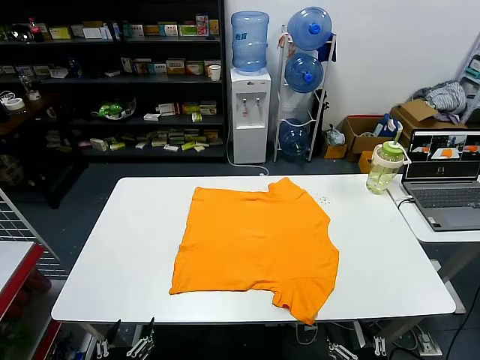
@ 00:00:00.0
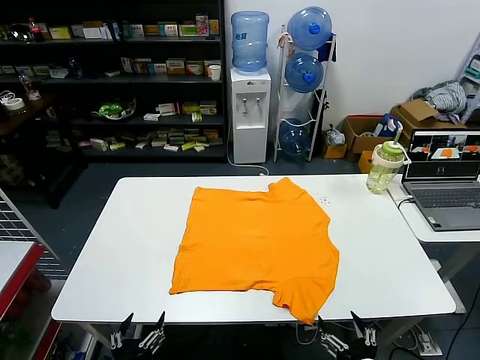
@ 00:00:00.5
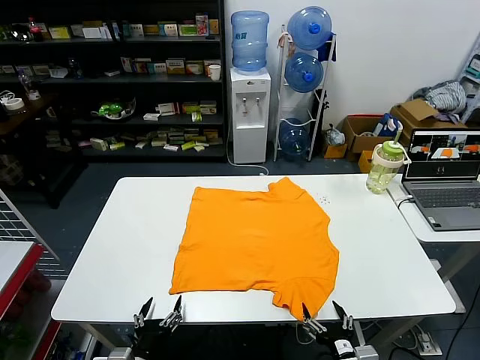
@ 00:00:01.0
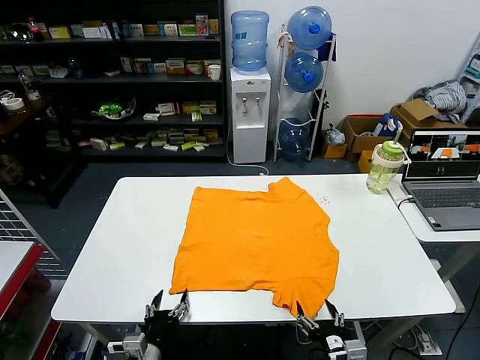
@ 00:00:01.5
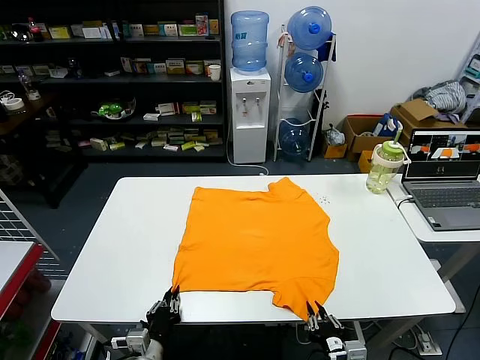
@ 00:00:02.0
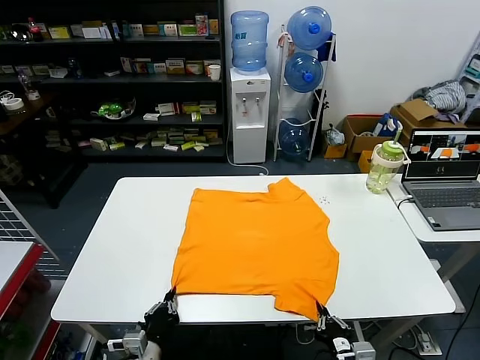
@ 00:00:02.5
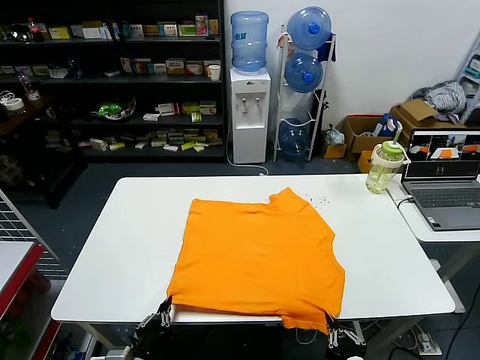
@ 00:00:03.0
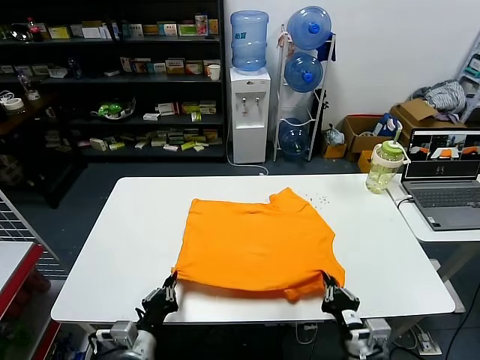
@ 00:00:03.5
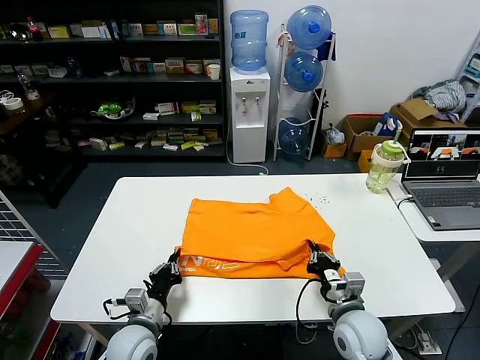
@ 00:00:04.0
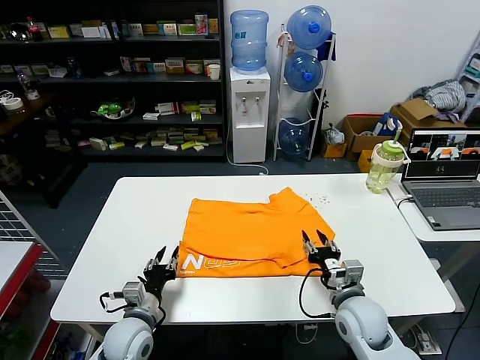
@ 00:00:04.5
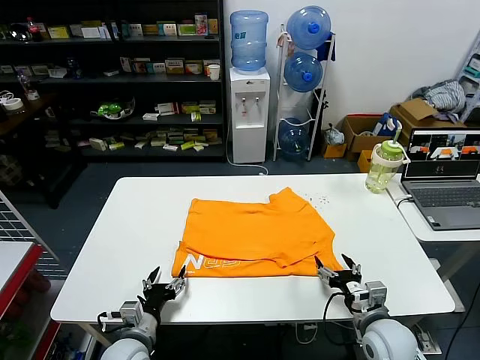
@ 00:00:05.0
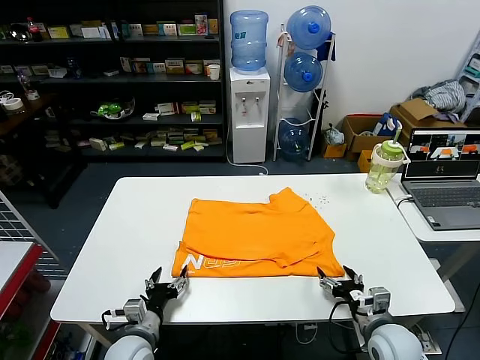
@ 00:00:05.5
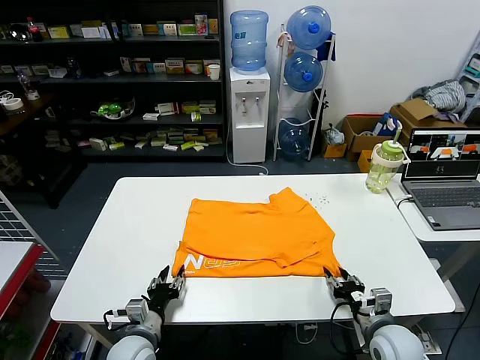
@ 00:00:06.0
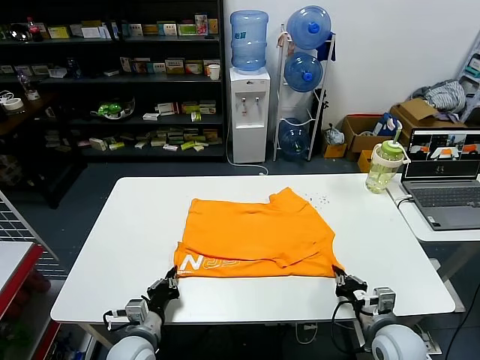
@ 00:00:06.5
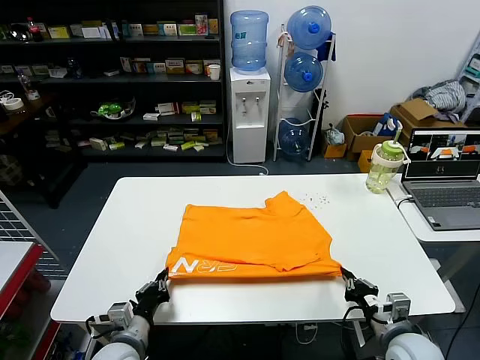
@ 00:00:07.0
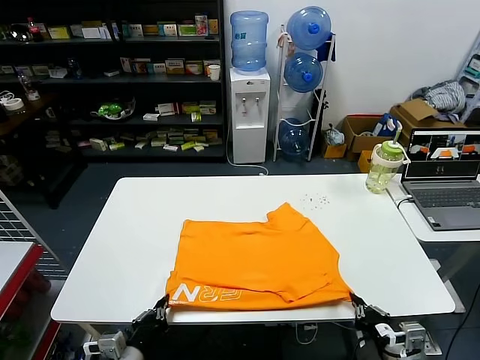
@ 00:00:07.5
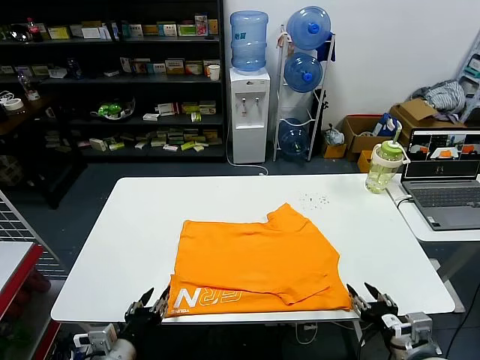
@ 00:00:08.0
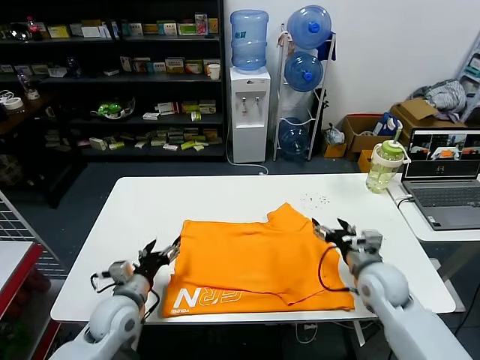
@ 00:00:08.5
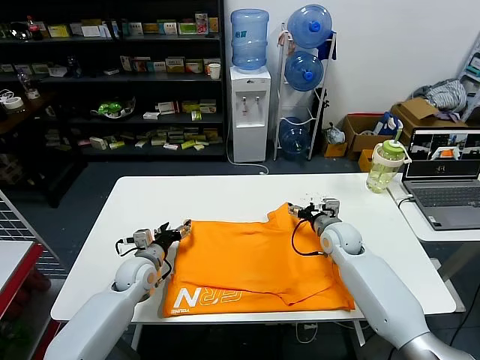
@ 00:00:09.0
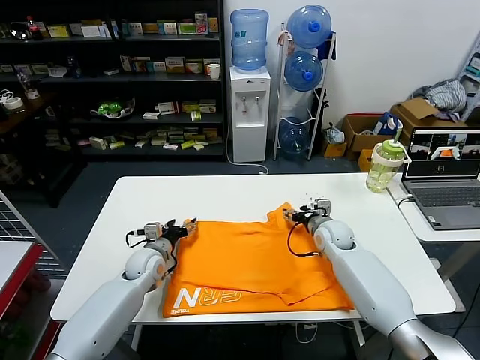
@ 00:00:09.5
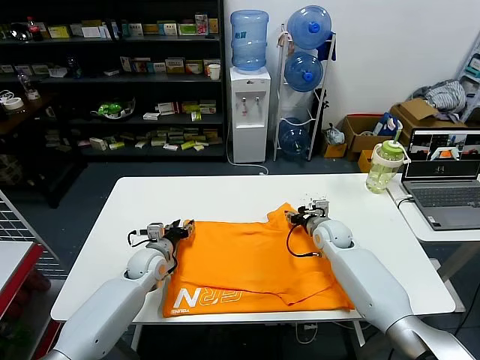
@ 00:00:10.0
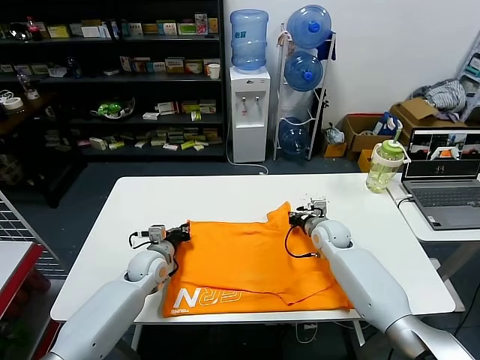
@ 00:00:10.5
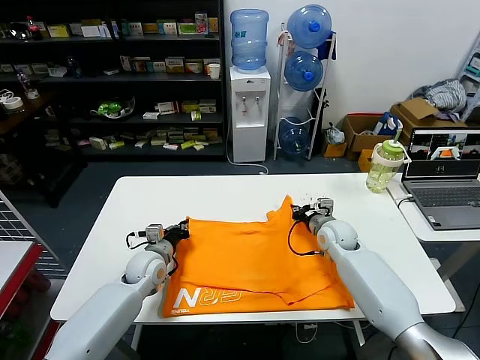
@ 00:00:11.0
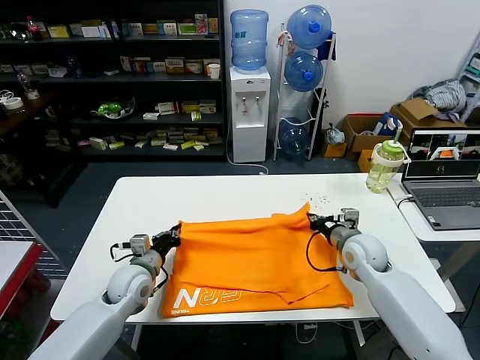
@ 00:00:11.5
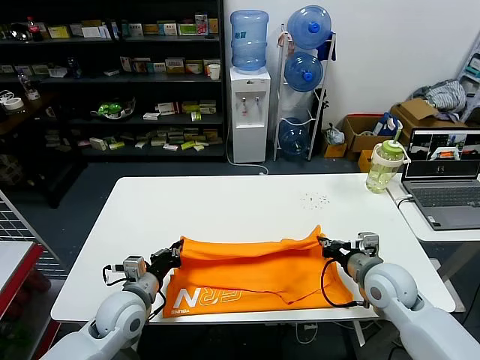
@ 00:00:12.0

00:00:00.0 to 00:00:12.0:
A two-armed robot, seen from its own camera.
Task of the whole recording: fold and organize the clothes.
Step, 00:00:00.0 to 00:00:02.0: use both grippers simultaneously to clamp the lower edge of the clothing fabric.
Step, 00:00:02.5 to 00:00:04.0: use both grippers to drag the lower edge of the fabric forward and fold it over the upper edge.
Step, 00:00:04.5 to 00:00:07.5: Drag the clothes downward with both gripper.
Step, 00:00:08.0 to 00:00:10.0: use both grippers simultaneously to clamp the upper edge of the clothing fabric.
00:00:02.0 to 00:00:04.0: The right gripper goes about 15 cm forward. Meanwhile the left gripper travels forward by about 5 cm.
00:00:04.0 to 00:00:06.0: The right gripper travels to the right by about 10 cm, and opens up, while the left gripper opens its fingers.
00:00:06.0 to 00:00:08.0: Both grippers move backward and upward, roughly 10 cm. The right gripper closes, then reopens; the left gripper closes, then opens again.
00:00:08.0 to 00:00:10.0: Both grippers travel together forward, about 30 cm. The right gripper opens, then closes again.
00:00:10.0 to 00:00:12.0: The two grippers go some 15 cm backward and upward. The left gripper closes its fingers, while the right gripper closes.

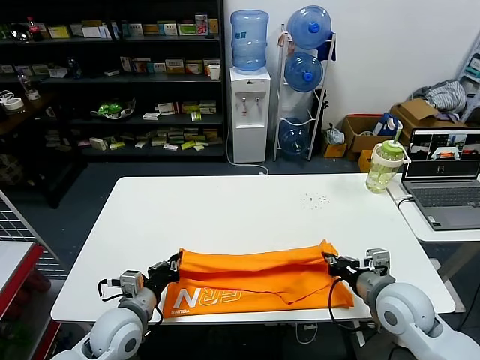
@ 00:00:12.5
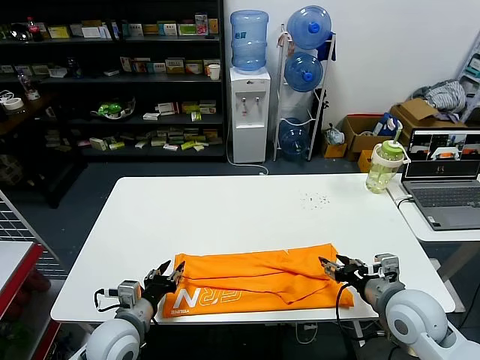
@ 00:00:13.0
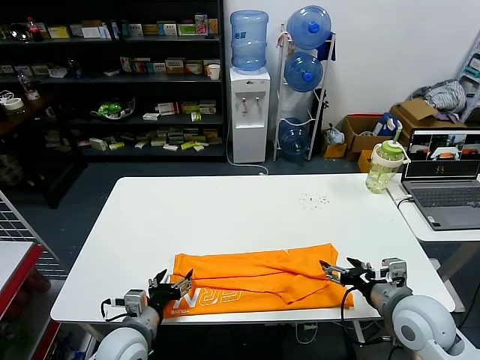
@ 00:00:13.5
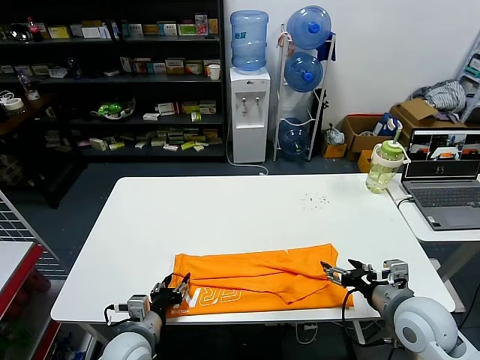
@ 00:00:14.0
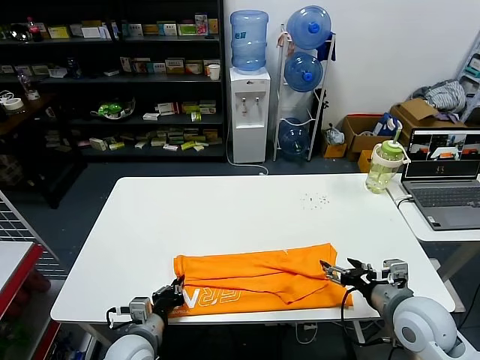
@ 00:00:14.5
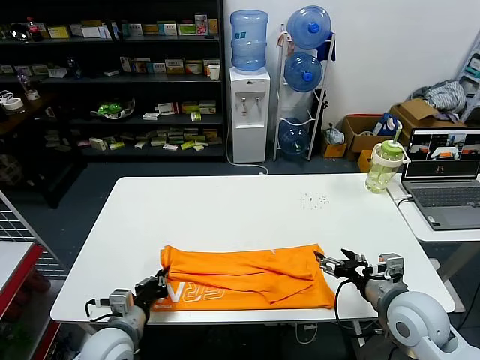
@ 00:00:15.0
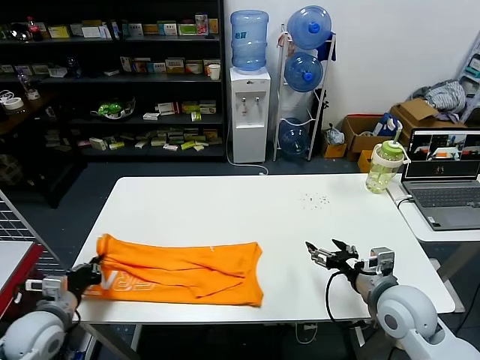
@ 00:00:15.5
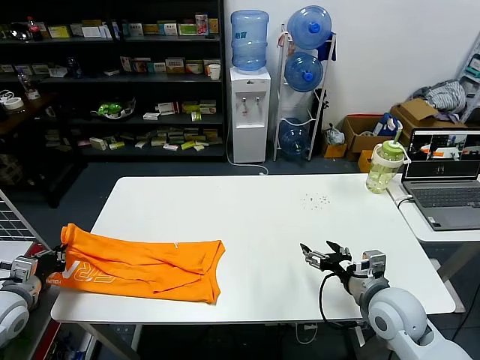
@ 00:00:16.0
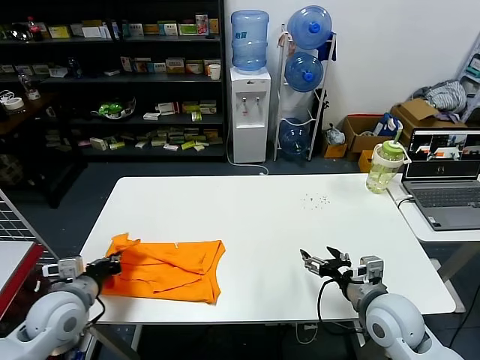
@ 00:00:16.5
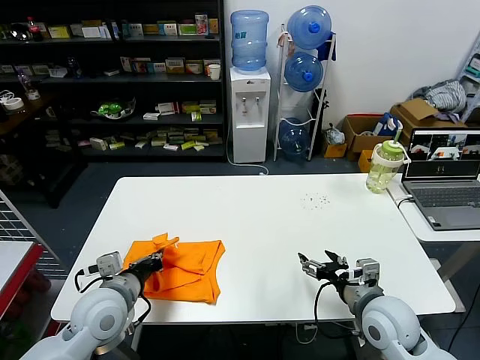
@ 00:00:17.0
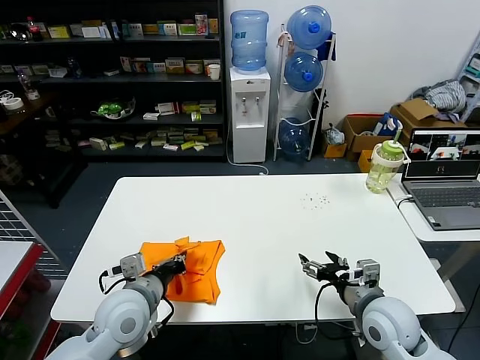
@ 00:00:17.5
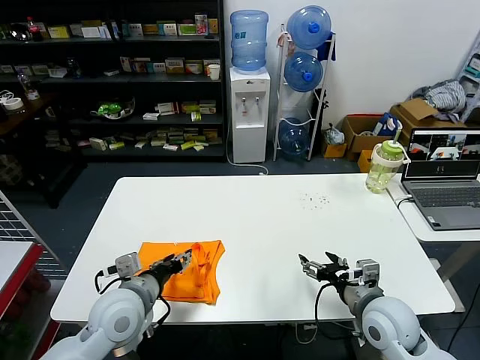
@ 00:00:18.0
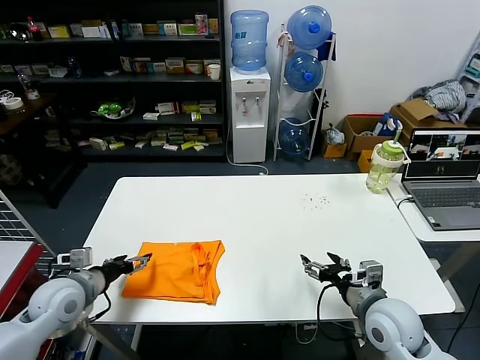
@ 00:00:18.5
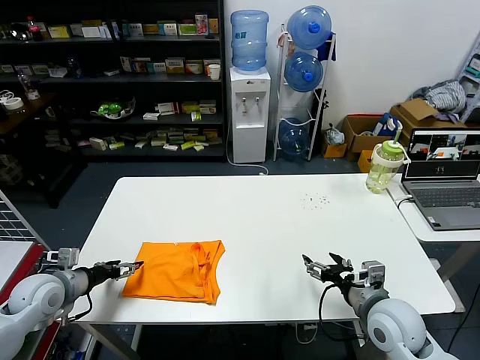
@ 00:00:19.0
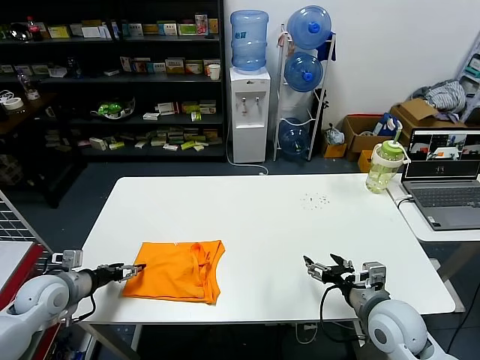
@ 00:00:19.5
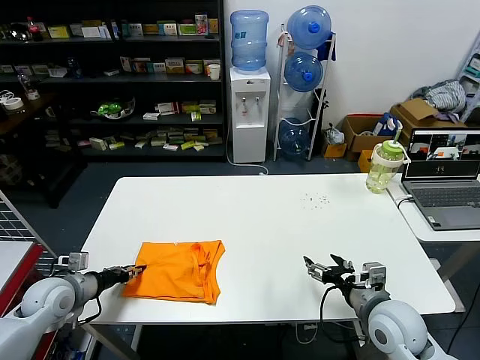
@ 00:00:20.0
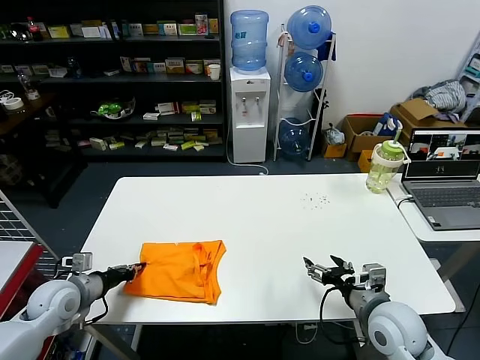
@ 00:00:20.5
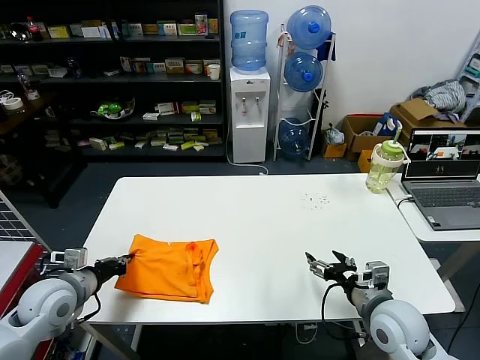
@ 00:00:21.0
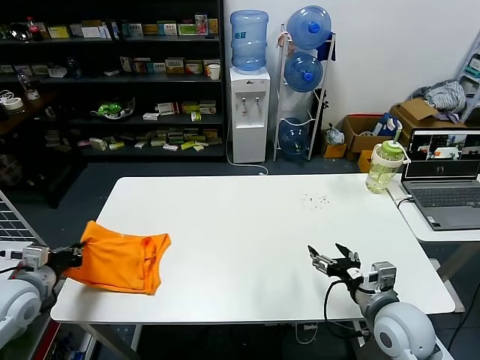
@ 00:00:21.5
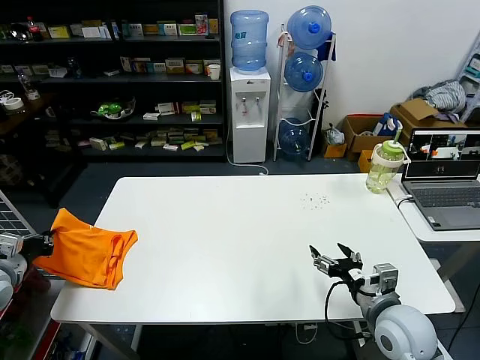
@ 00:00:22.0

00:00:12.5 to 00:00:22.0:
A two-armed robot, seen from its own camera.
Task of the whole recording: fold and organize the clothes.
Step, 00:00:13.0 to 00:00:14.0: use the left gripper to clamp the left edge of the fabric.
Step, 00:00:15.0 to 00:00:17.5: use the left gripper to drag the left edge of the fabric to the left and folds it over the right edge.
00:00:12.5 to 00:00:14.5: The left gripper shifts some 5 cm downward, and opens, then closes again; the right gripper opens.
00:00:14.5 to 00:00:16.5: The left gripper is displaced to the left and upward by some 20 cm.
00:00:16.5 to 00:00:18.0: The left gripper shifts some 15 cm to the right, and opens its fingers.
00:00:18.0 to 00:00:20.0: The left gripper is displaced to the left by some 20 cm, and opens and closes again.
00:00:20.0 to 00:00:22.0: The left gripper heads upward and to the left, covering roughly 10 cm, and closes.

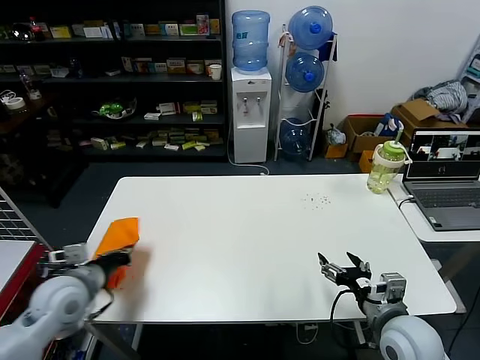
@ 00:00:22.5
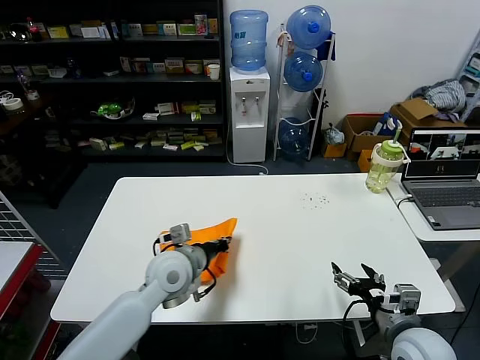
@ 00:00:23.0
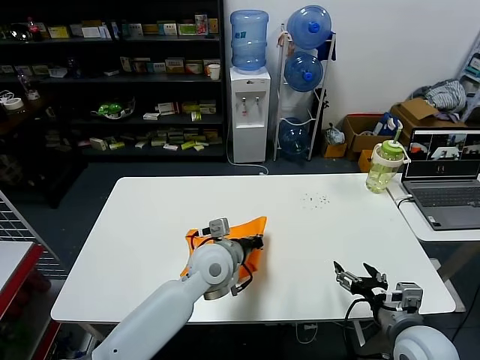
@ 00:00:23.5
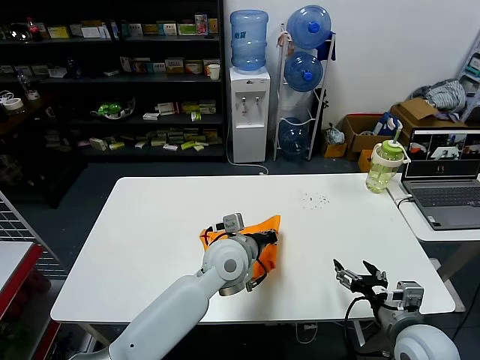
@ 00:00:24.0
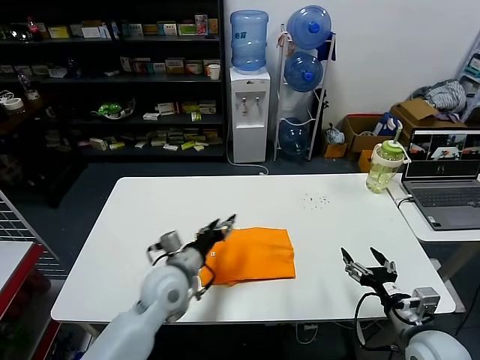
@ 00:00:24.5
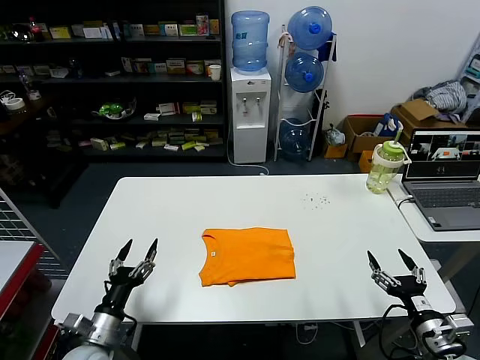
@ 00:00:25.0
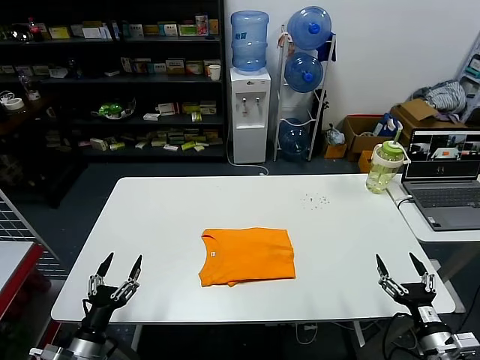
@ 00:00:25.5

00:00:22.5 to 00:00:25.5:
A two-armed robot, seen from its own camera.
Task of the whole recording: fold and organize the clothes.
00:00:22.5 to 00:00:24.0: The left gripper travels to the right by some 35 cm.
00:00:24.0 to 00:00:25.5: The right gripper moves to the right, downward and backward, approximately 10 cm, while the left gripper goes approximately 40 cm to the left, backward and downward, and opens.
